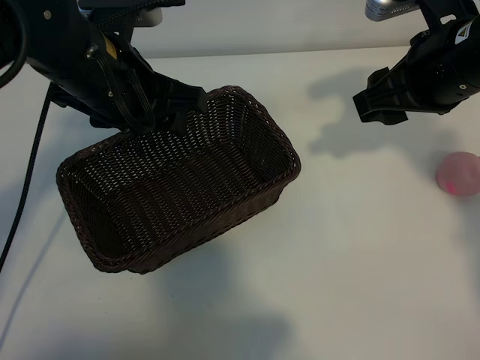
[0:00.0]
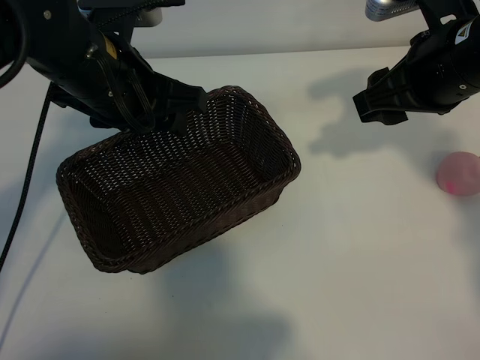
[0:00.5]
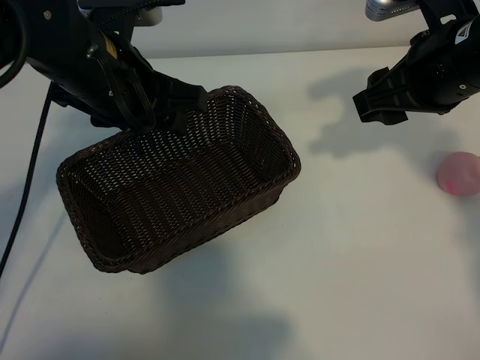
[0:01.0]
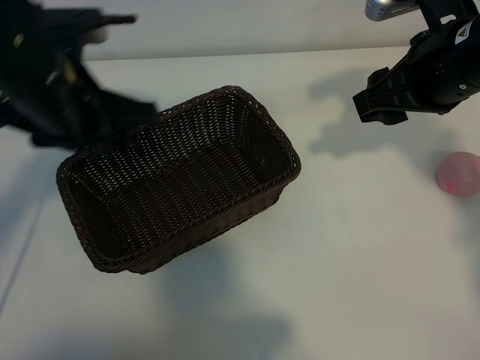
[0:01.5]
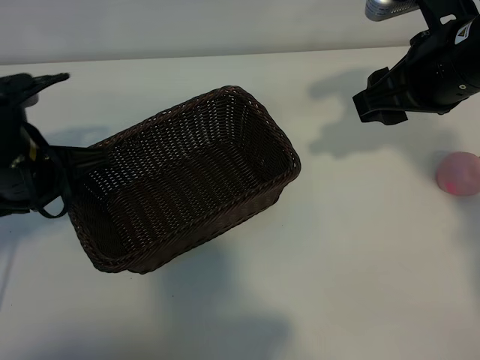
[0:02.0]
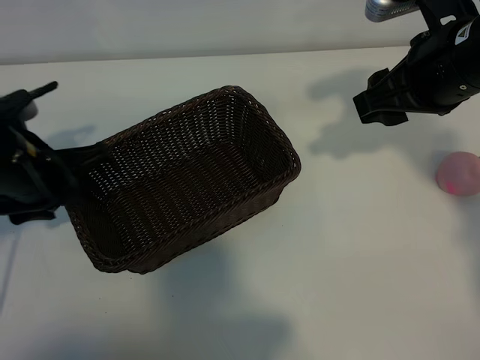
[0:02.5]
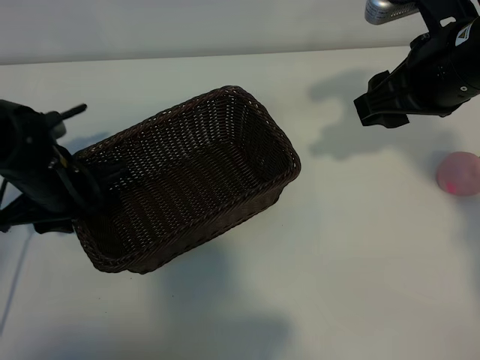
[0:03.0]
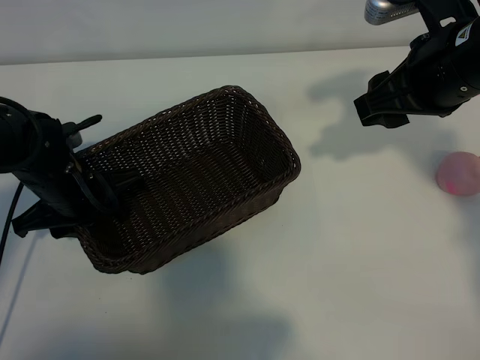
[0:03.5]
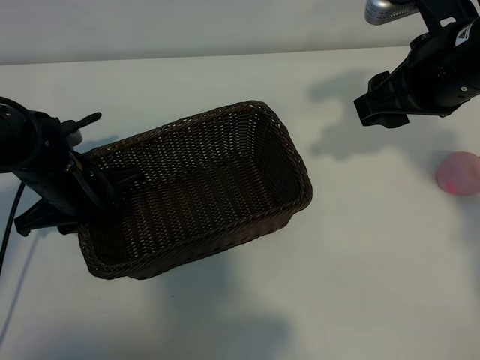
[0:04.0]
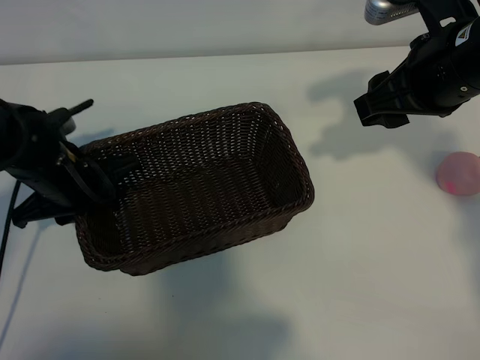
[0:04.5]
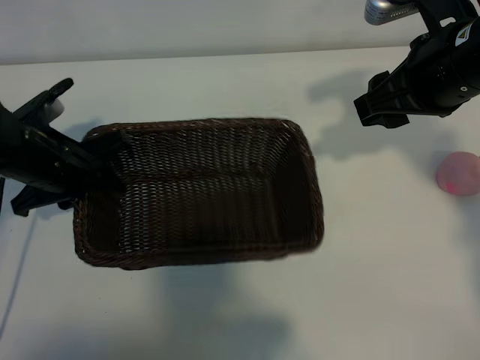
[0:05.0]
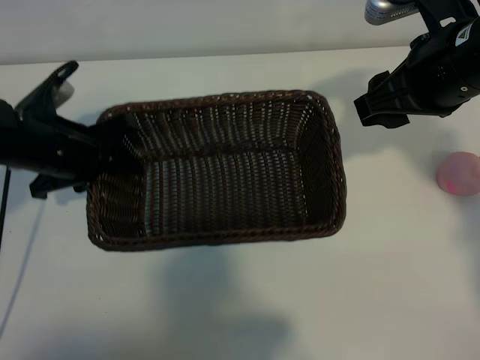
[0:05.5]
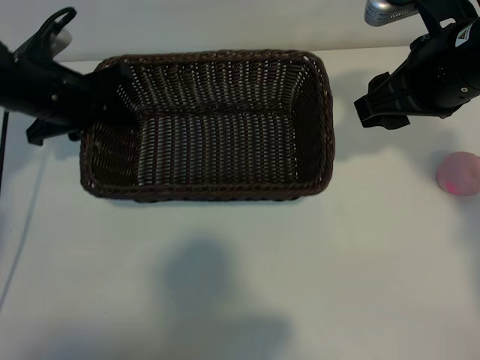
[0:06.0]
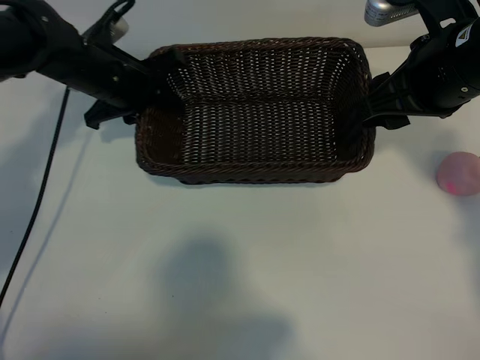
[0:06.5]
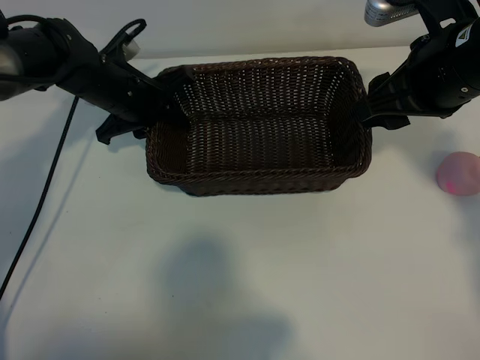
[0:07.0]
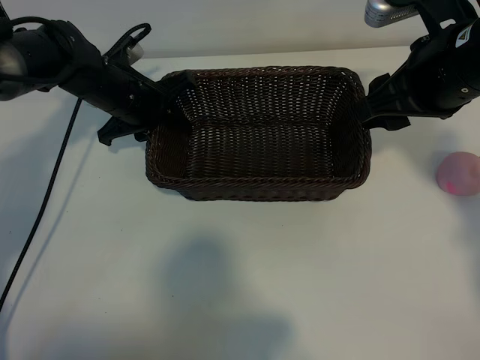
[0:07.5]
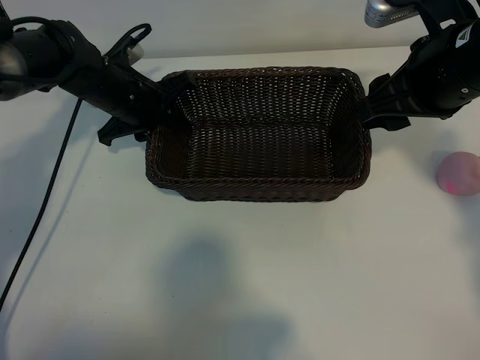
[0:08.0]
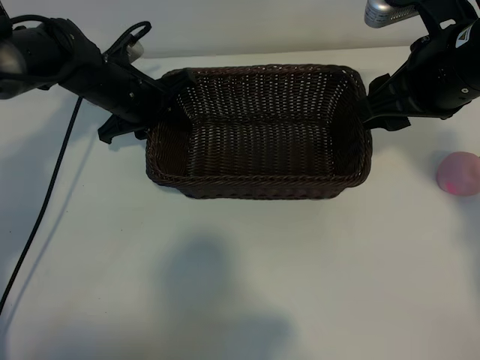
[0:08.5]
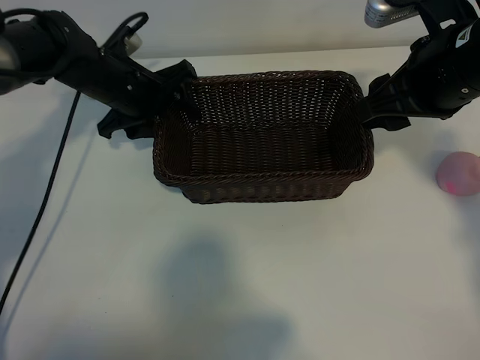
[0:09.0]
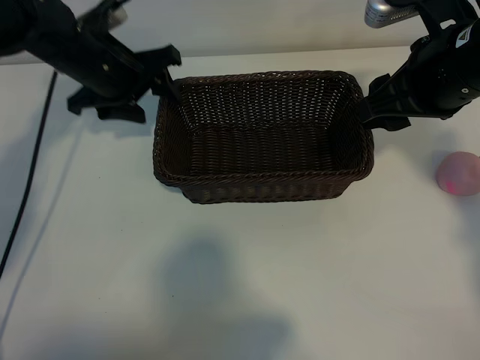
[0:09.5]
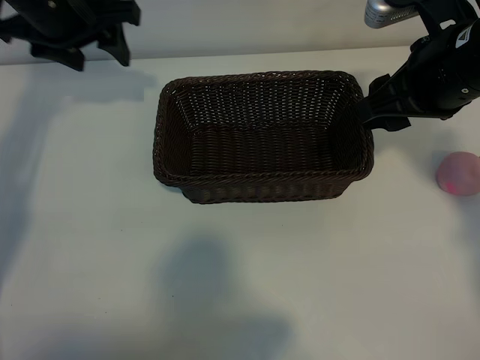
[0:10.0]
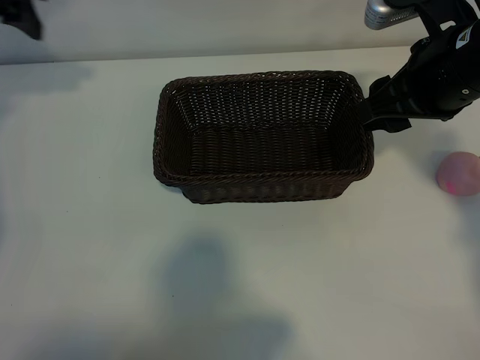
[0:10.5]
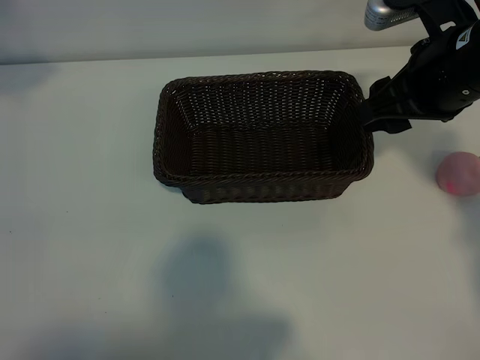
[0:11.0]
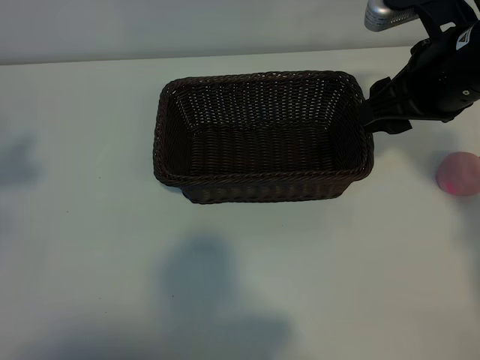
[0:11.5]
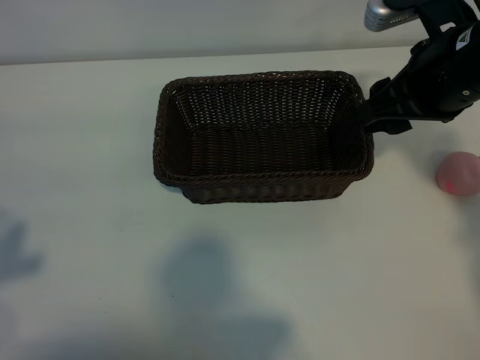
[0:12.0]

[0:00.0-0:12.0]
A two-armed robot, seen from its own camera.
Task of the whole recording: pick up the peach and put it into the basket.
Step, 0:01.0 to 0:04.0: Grasp the basket with left gripper.
Step, 0:04.5 to 0:09.0: Place the basket in the center of view with left gripper.

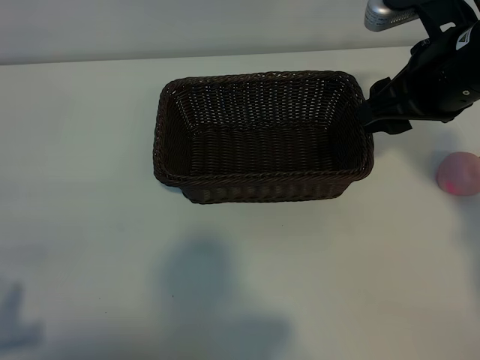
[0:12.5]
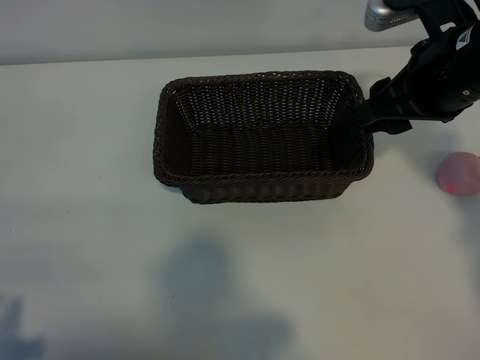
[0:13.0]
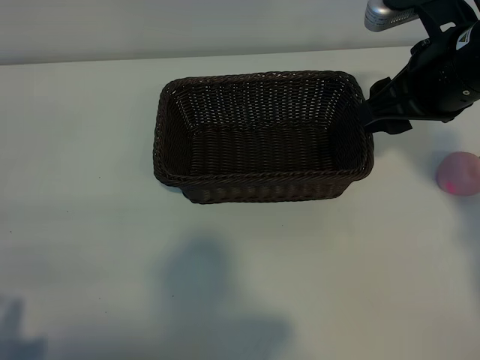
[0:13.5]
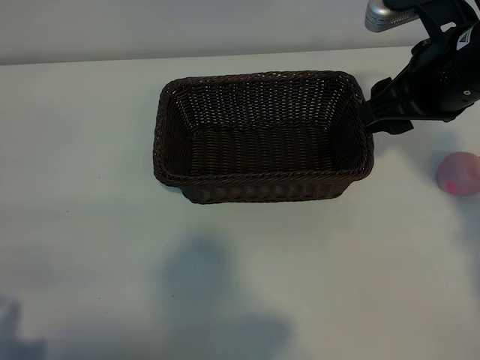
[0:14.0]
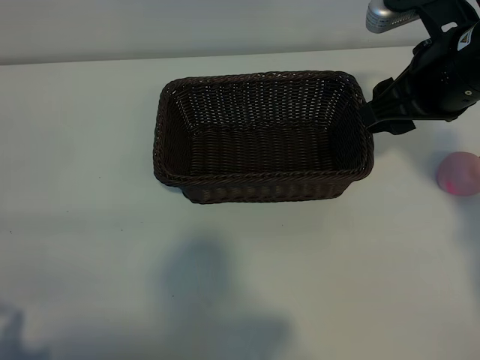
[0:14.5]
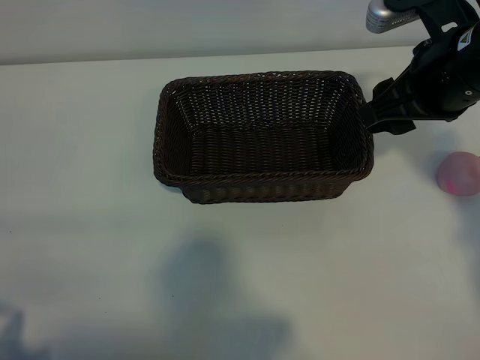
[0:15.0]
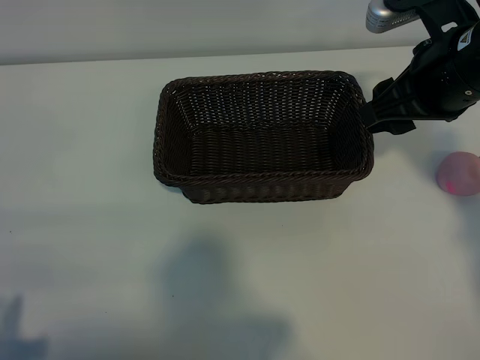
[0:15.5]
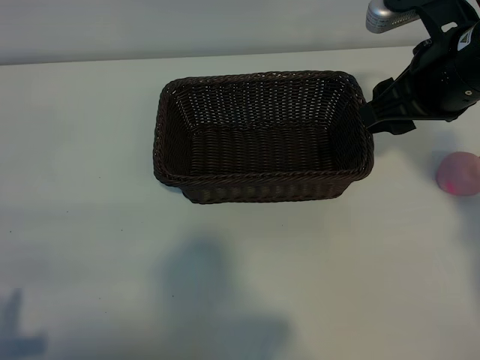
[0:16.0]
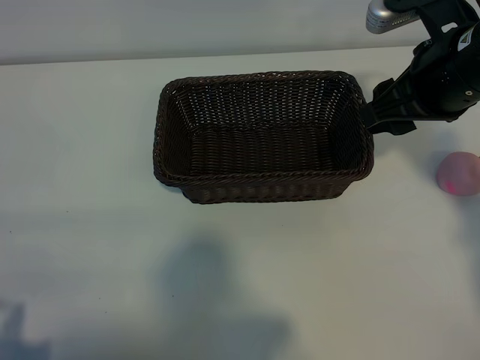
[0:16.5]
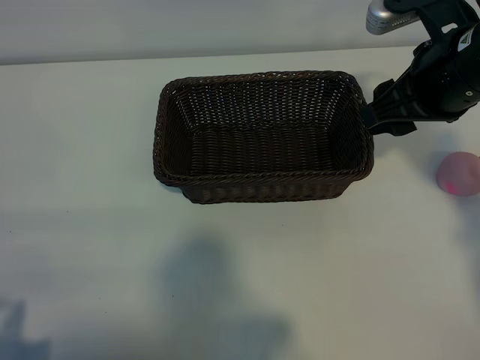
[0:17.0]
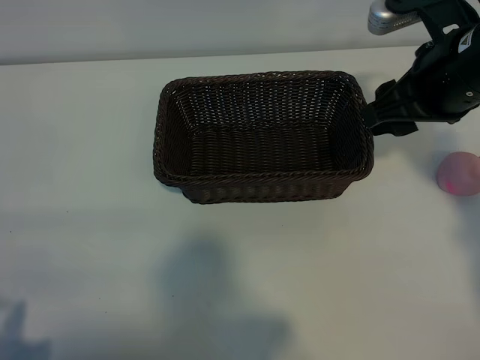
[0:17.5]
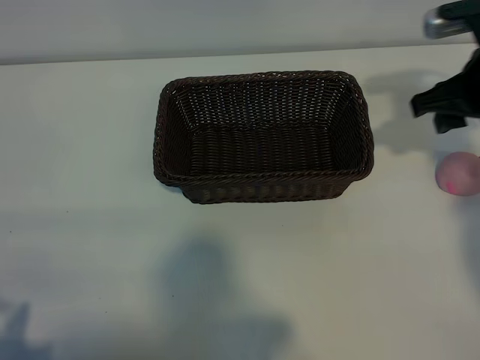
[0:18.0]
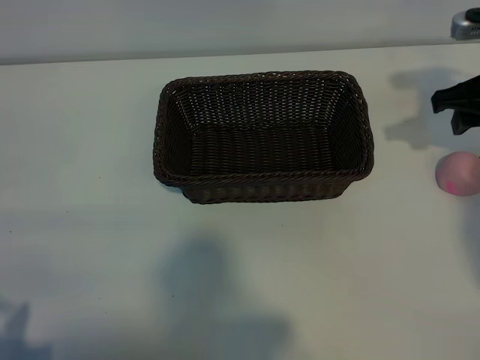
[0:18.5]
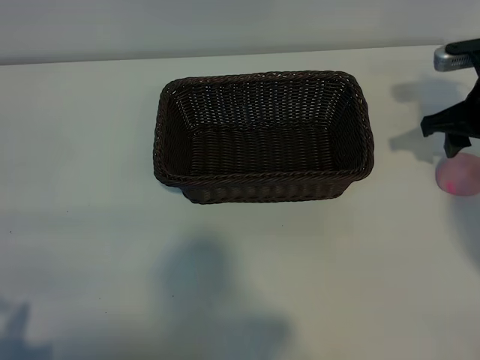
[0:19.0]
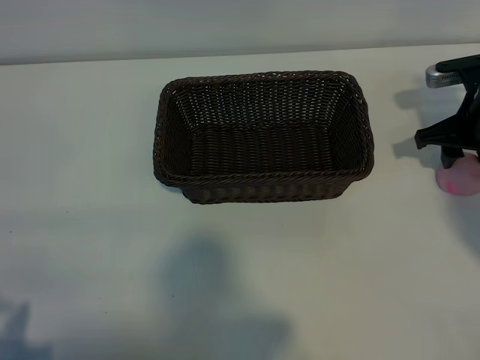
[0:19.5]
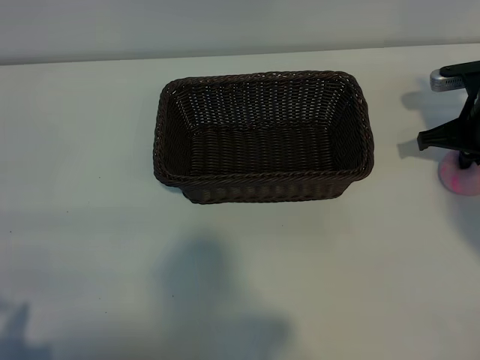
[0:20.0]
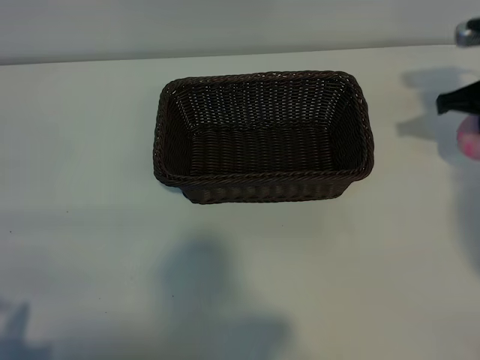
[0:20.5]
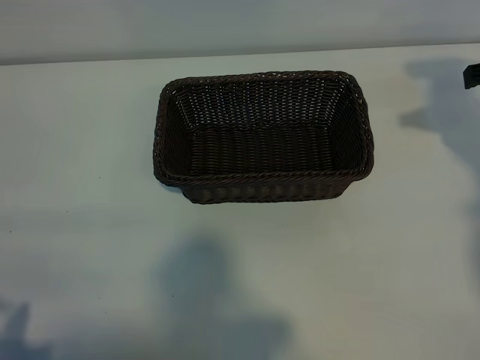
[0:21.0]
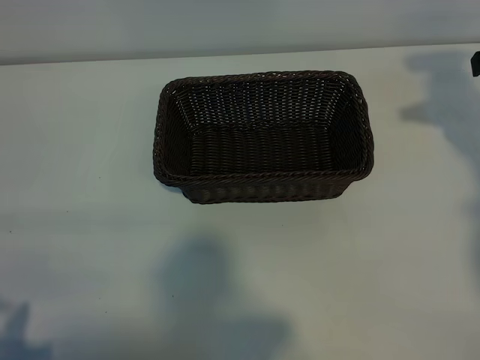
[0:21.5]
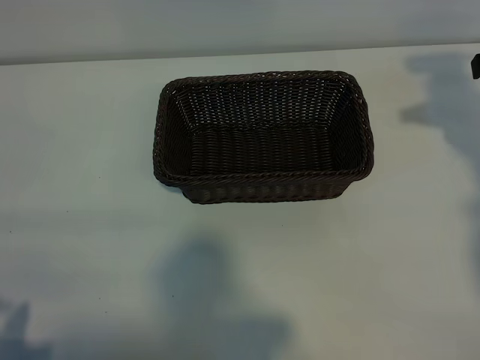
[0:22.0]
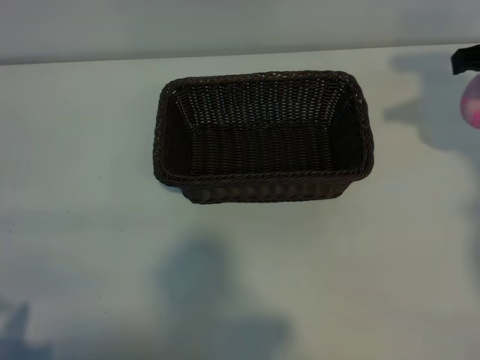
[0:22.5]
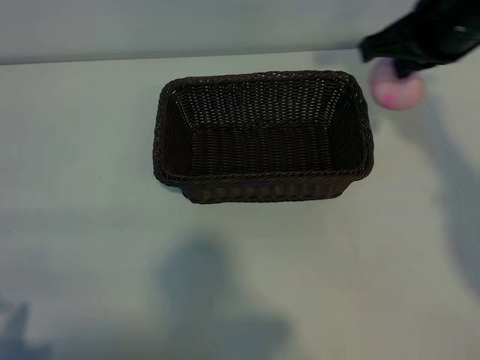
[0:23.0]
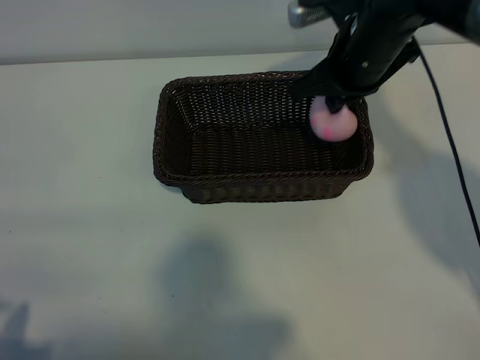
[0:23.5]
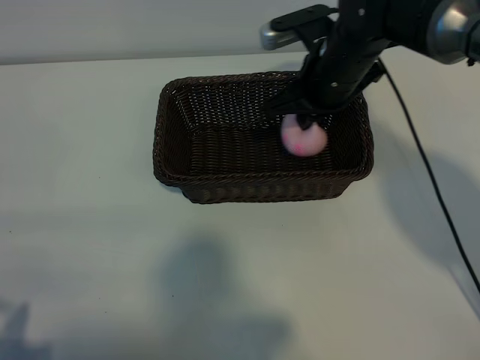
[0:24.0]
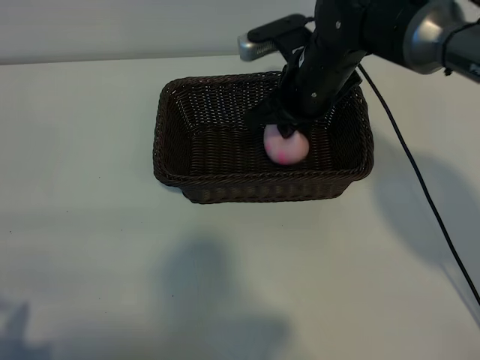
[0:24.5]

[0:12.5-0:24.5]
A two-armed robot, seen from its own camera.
Task of the whole recording: pick up the peach and put it into the basket.
Step, 0:12.5 to 0:20.0: Grasp the peach with right gripper.

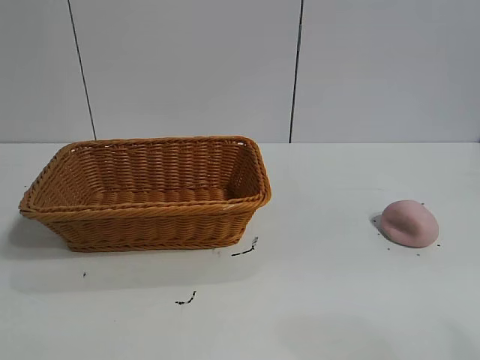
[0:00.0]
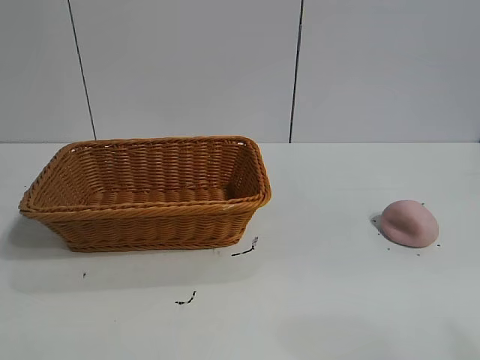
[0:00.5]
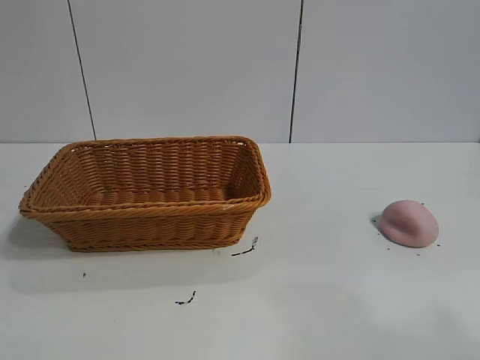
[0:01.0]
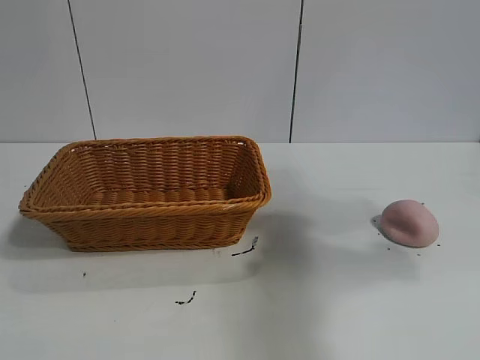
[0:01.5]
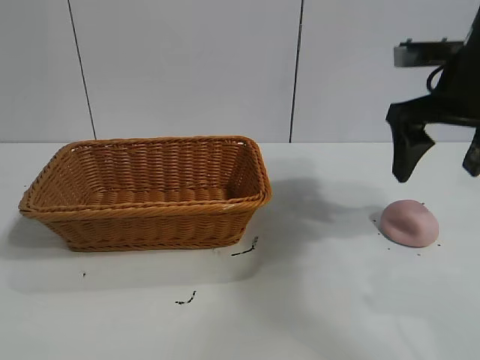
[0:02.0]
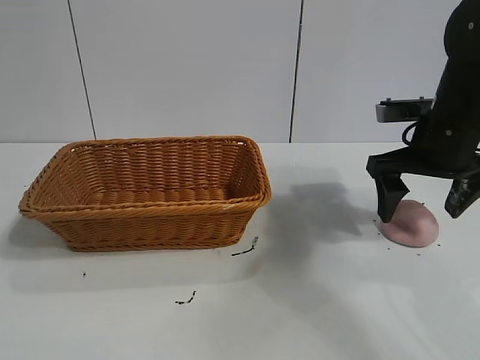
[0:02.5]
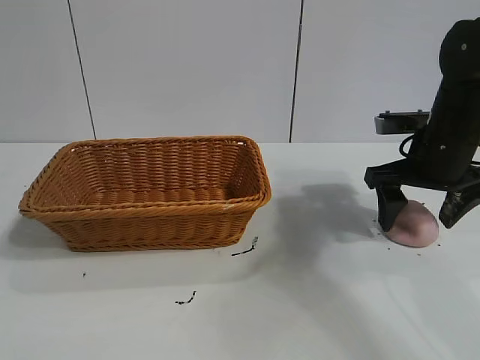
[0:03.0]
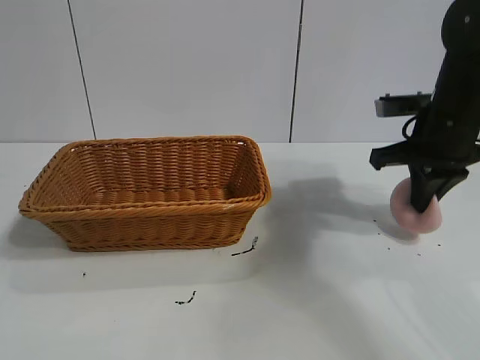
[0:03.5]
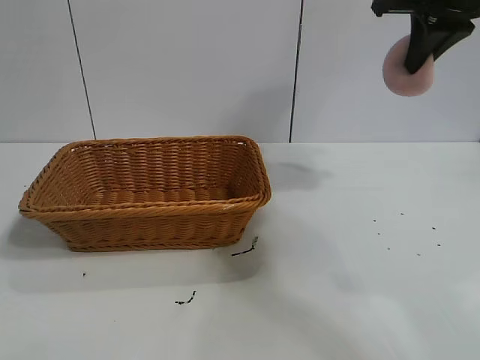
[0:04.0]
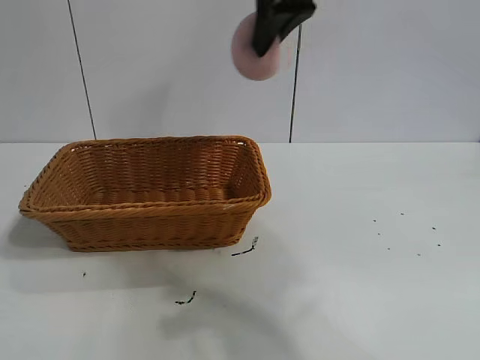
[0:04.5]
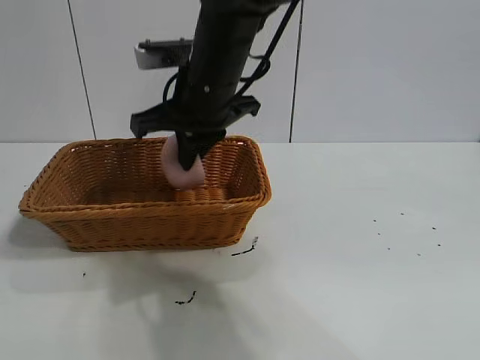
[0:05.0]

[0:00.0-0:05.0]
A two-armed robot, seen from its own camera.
Task of the whole recording: pick up the peach and put it into the basket.
Step, 0:01.0 to 0:03.0: Grasp the peach with right gripper.
